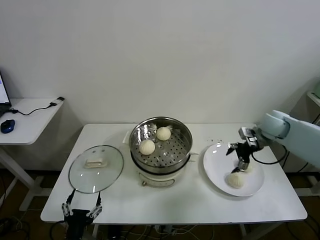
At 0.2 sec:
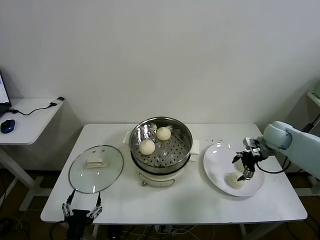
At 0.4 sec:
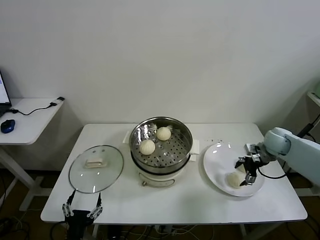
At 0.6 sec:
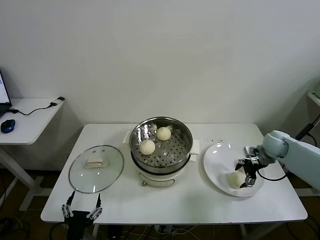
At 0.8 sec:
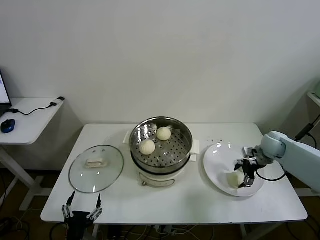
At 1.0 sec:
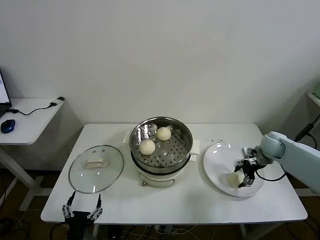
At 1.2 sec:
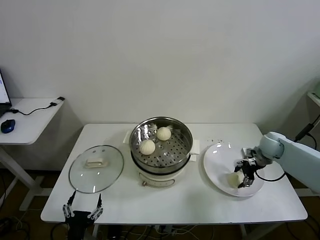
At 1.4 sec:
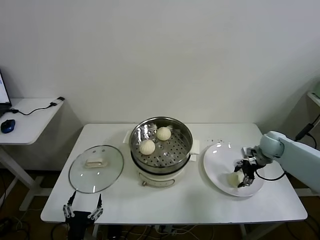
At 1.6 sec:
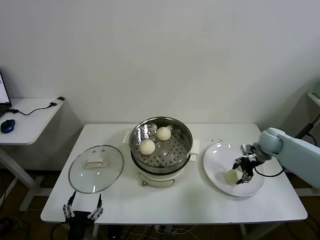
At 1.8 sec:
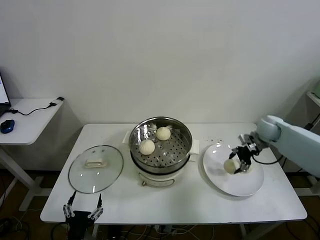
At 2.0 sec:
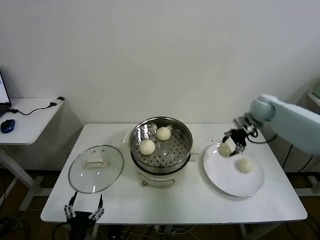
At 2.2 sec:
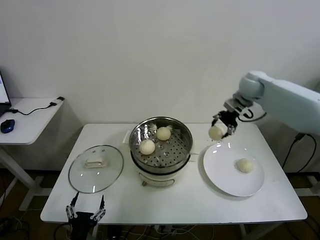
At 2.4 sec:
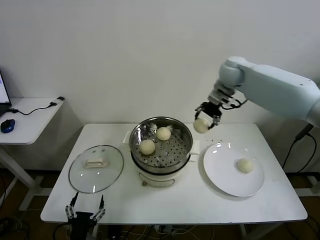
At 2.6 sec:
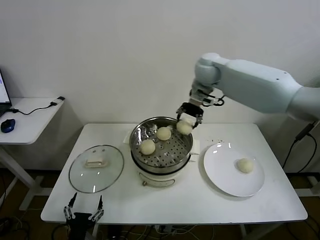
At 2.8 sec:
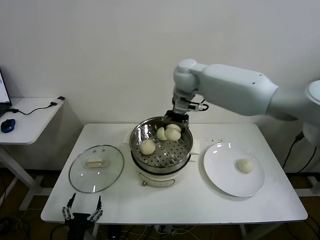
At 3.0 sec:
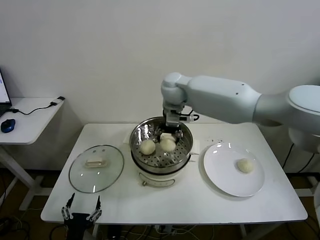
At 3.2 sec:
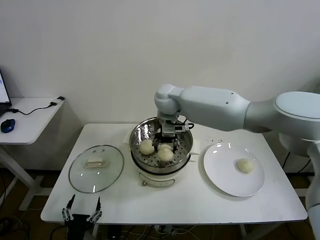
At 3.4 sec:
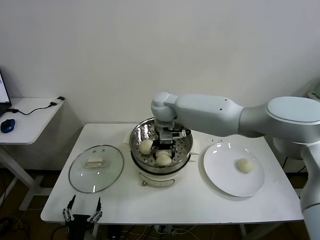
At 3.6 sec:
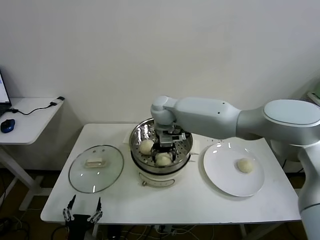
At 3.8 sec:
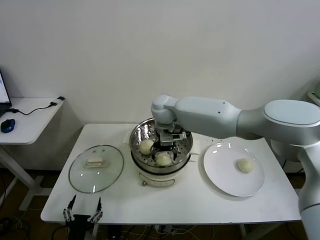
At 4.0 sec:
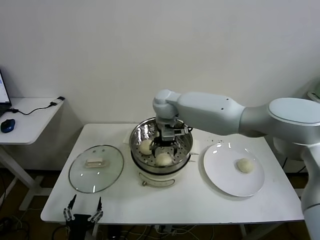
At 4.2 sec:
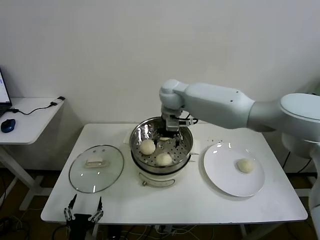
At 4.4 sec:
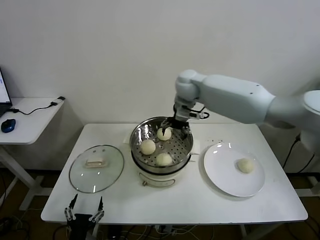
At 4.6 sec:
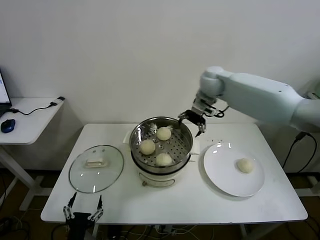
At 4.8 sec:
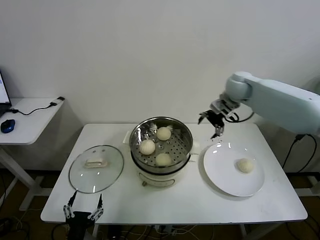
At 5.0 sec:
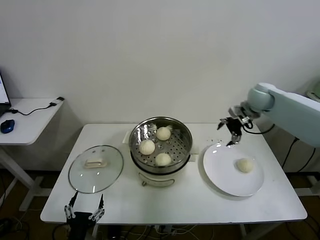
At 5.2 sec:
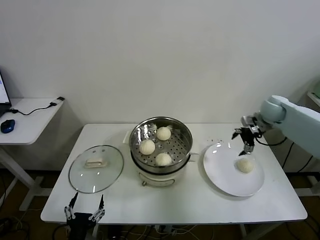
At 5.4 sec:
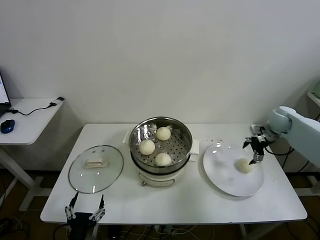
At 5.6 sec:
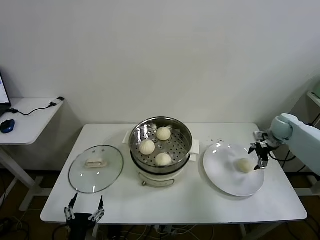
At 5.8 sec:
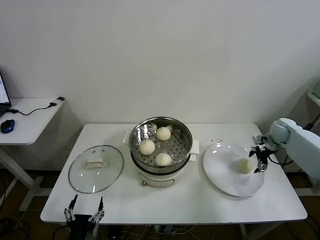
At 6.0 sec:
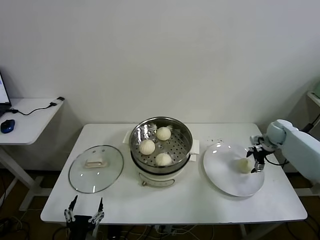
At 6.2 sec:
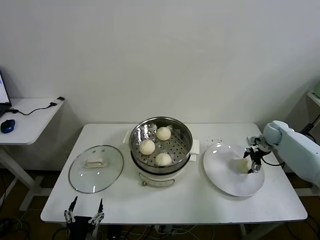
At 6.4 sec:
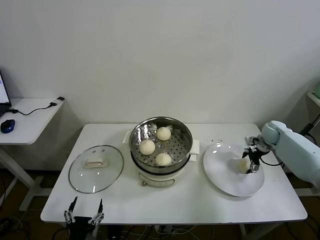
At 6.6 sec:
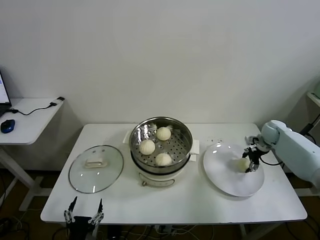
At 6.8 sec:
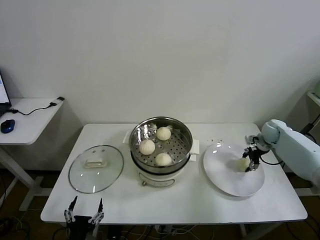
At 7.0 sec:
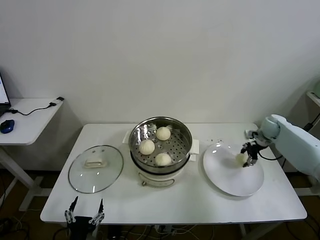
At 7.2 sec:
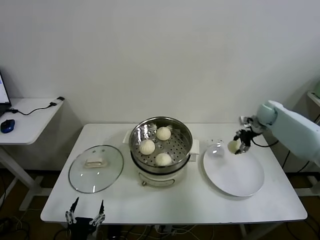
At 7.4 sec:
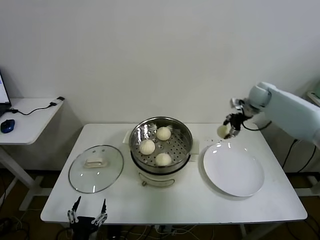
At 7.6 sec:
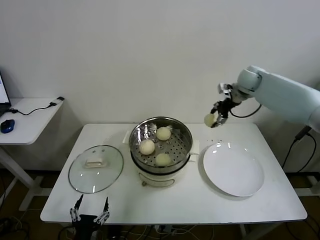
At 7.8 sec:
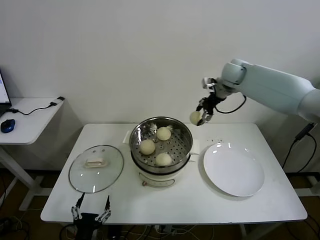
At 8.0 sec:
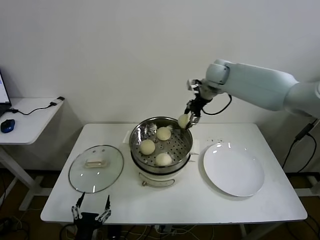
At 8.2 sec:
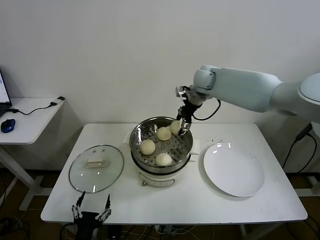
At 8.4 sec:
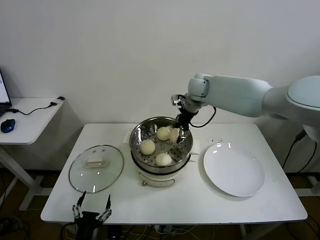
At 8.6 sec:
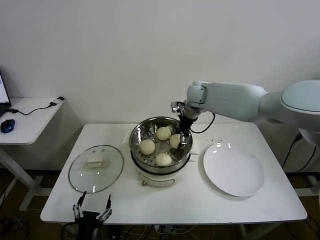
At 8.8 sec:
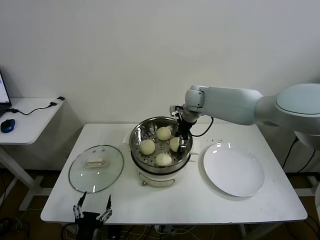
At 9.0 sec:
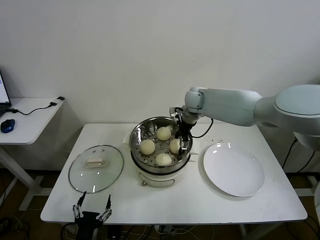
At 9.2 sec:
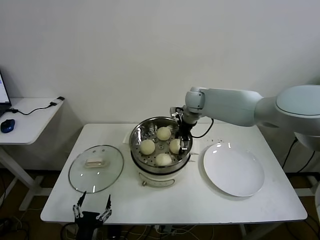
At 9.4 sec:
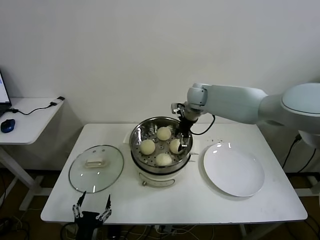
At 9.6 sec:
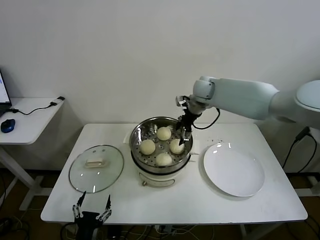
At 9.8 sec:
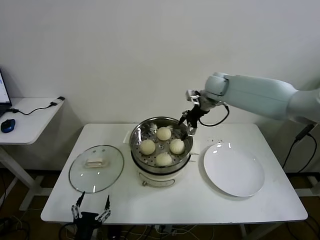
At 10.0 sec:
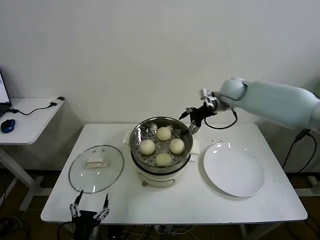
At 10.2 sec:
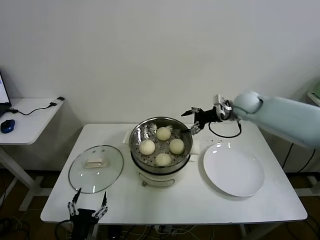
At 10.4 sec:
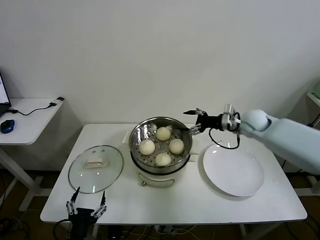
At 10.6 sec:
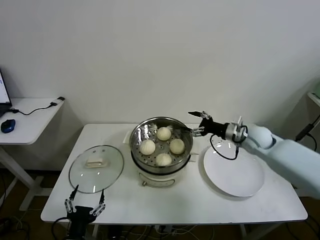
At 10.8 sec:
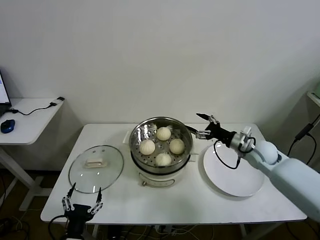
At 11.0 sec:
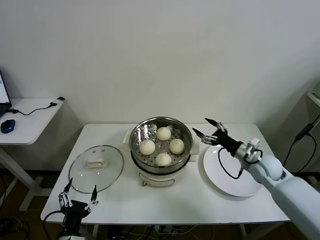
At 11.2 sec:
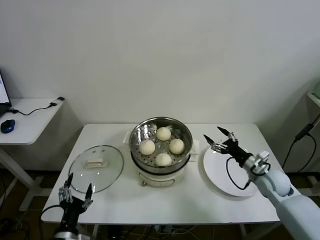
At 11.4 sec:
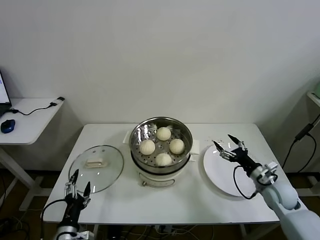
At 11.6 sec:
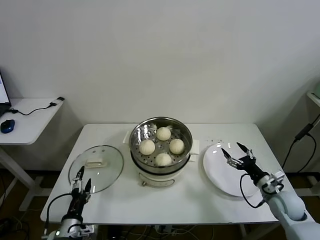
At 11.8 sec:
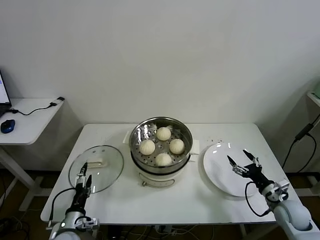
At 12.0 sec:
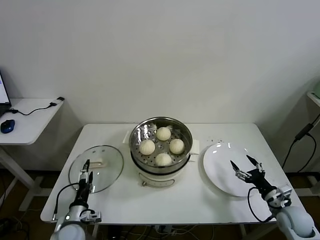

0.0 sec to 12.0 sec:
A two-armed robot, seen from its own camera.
Task of the whole recording: take steamed baozi put them in steamer then cover it.
Step, 0.0 sec to 1.4 sec: Grasp the baozi in the plate with right gripper.
Step, 1.6 sec to 3.8 sec: Place the baozi on the steamer with right gripper.
Step, 4.2 sec to 6.8 sec: Grasp the baozi in the plate with right gripper.
Step, 7.0 sec to 9.6 sec: Place the baozi on the steamer with right gripper.
0.0 sec to 1.6 sec: The right gripper is displaced downward by some 5 cm, and closes.
1.6 sec to 3.0 sec: The right gripper travels to the left and upward by roughly 40 cm.
3.0 sec to 4.4 sec: The right gripper heads to the right, covering roughly 5 cm, and opens its fingers.
4.4 sec to 6.0 sec: The right gripper moves to the right and downward, about 40 cm.
6.0 sec to 7.6 sec: The right gripper goes approximately 25 cm upward, to the left and forward, and closes.
7.6 sec to 9.0 sec: The right gripper moves to the left, about 20 cm, and opens.
9.0 sec to 10.4 sec: The right gripper goes approximately 20 cm to the right and backward.
10.4 sec to 12.0 sec: The right gripper travels backward, downward and to the right by some 35 cm, while the left gripper goes about 15 cm forward, downward and to the left.

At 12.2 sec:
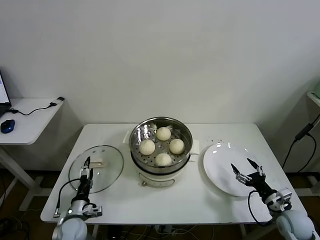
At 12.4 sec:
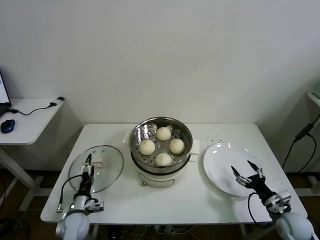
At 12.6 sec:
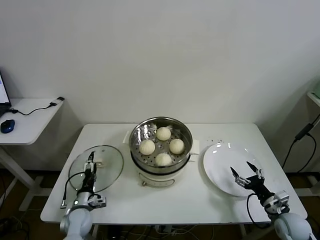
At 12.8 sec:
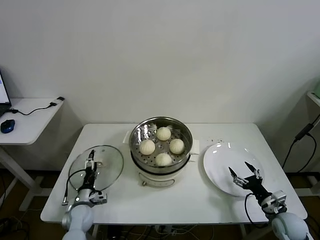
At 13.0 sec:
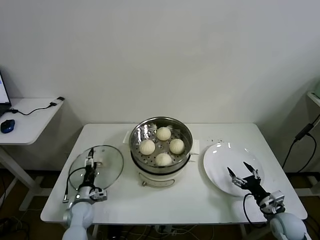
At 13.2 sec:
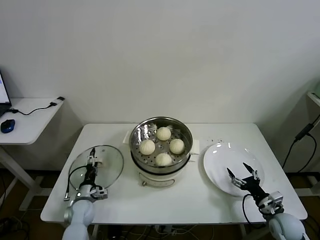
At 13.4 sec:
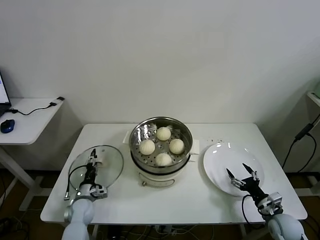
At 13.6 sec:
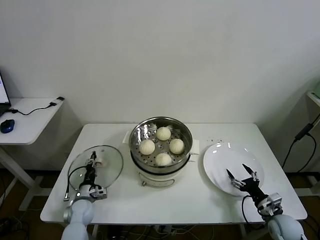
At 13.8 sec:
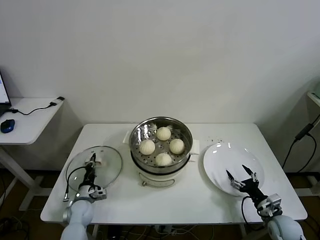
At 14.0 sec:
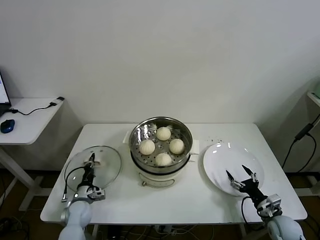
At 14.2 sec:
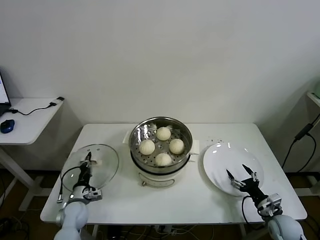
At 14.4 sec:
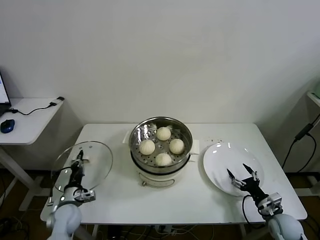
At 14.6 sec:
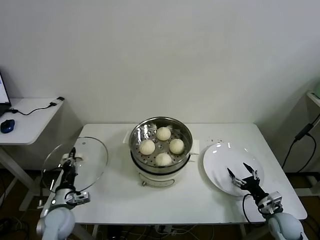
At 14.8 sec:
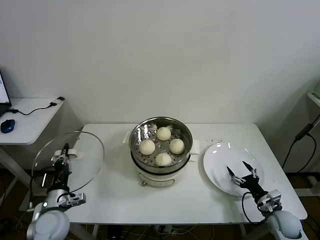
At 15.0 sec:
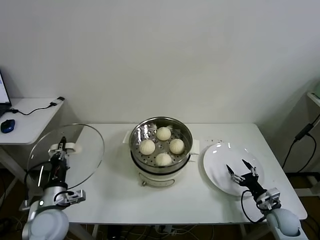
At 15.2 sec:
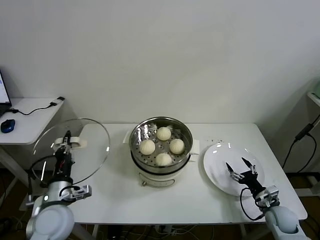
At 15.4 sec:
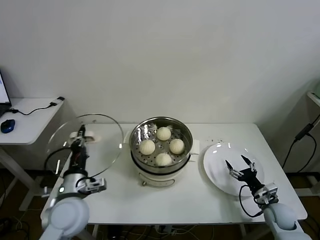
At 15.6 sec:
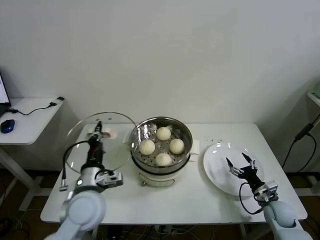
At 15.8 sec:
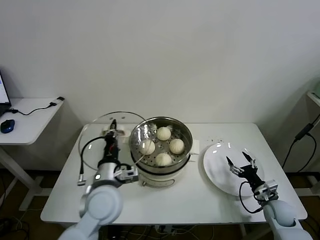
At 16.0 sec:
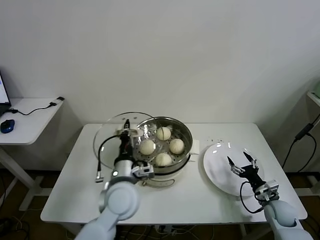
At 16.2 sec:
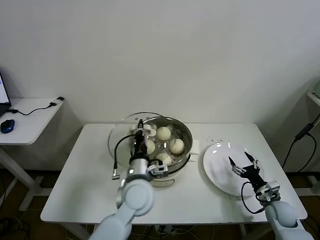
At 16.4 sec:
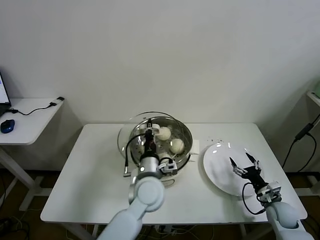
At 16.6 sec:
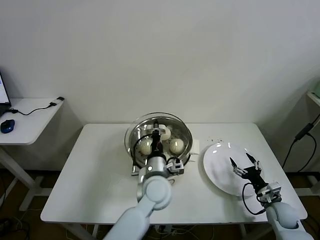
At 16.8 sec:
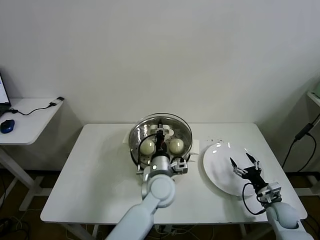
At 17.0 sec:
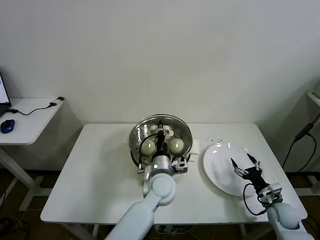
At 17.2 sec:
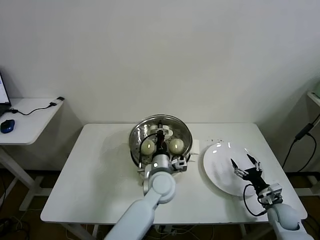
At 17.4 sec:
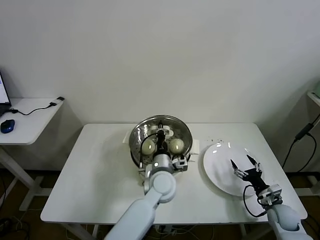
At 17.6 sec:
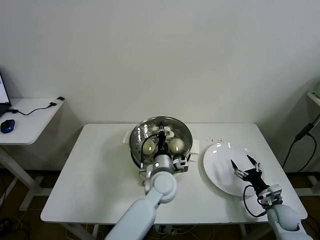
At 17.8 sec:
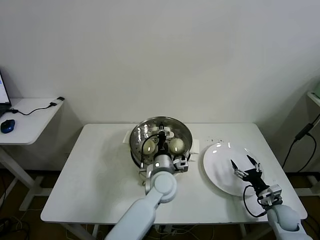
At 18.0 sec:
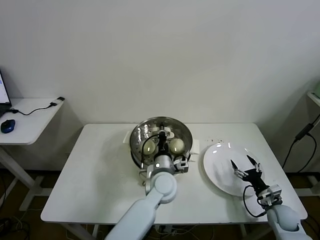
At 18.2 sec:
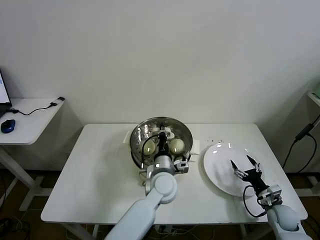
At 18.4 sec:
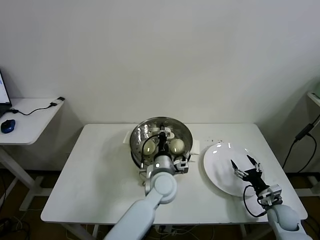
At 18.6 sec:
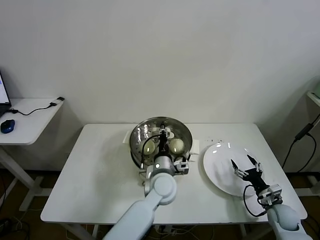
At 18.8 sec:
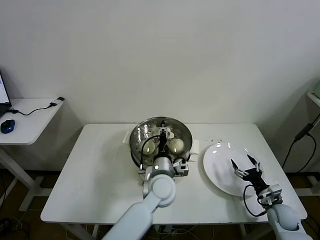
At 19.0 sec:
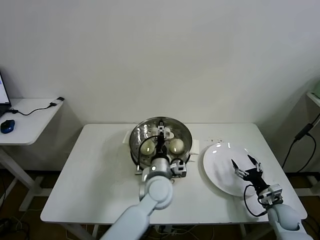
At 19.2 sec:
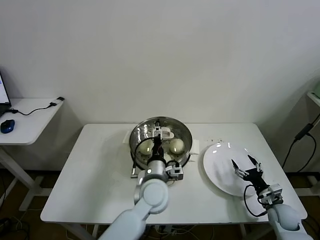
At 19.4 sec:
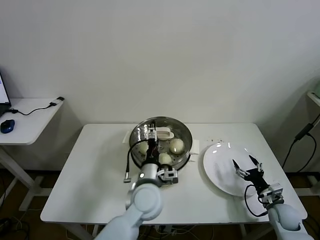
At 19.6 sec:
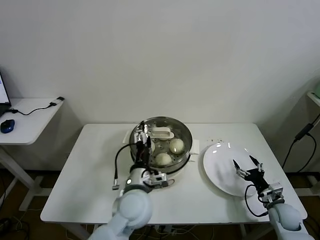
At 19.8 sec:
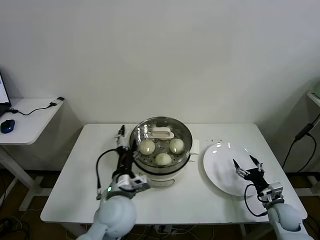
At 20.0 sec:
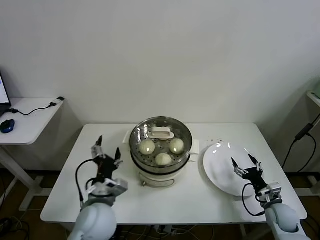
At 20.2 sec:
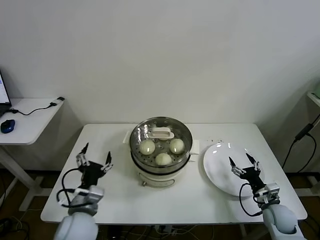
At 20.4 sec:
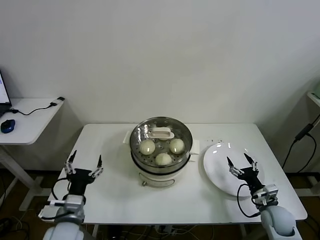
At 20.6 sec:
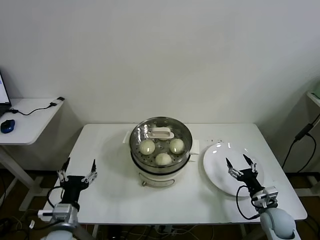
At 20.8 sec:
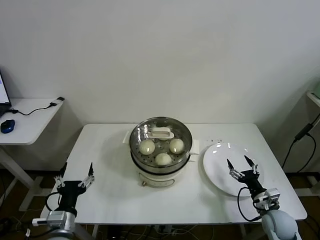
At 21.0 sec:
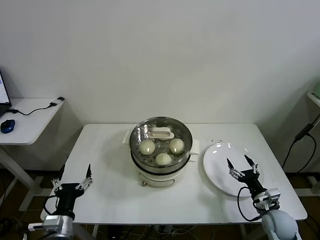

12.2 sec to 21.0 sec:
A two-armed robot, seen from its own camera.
Task of the whole recording: take steamed baozi put them in steamer then cover it.
Step, 14.2 sec to 18.8 sec: Place the pot lid on the steamer with left gripper.
12.2 sec to 13.6 sec: The left gripper travels forward by approximately 10 cm, and closes.
13.6 sec to 15.2 sec: The left gripper shifts about 25 cm upward and backward, and closes its fingers.
15.2 sec to 16.6 sec: The left gripper shifts about 30 cm to the right.
16.6 sec to 18.0 sec: The left gripper changes place by about 5 cm.
18.0 sec to 19.6 sec: The left gripper travels backward and to the left by roughly 10 cm, and opens its fingers.
19.6 sec to 21.0 sec: The right gripper shifts by roughly 5 cm. The left gripper shifts approximately 25 cm to the left and backward.
